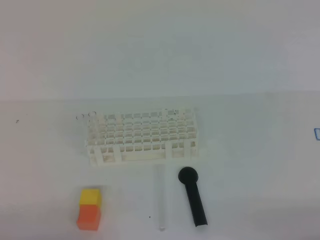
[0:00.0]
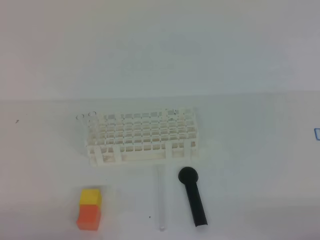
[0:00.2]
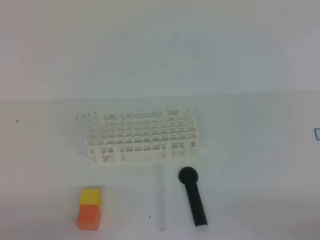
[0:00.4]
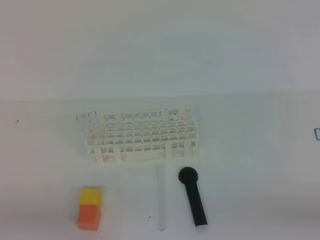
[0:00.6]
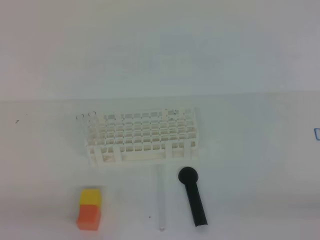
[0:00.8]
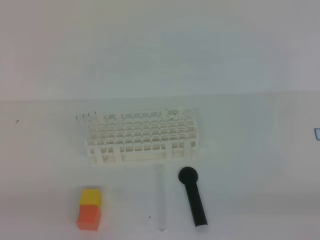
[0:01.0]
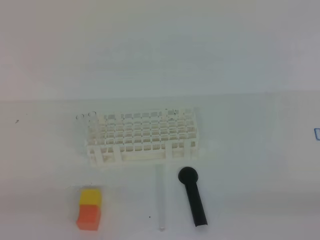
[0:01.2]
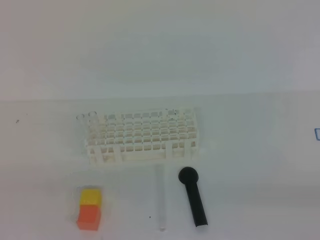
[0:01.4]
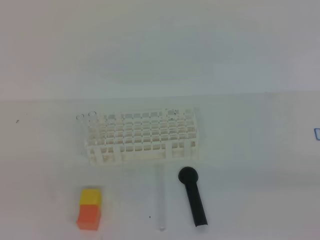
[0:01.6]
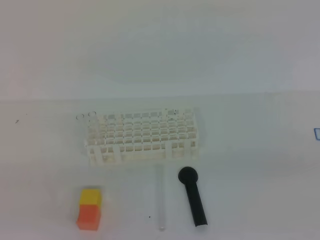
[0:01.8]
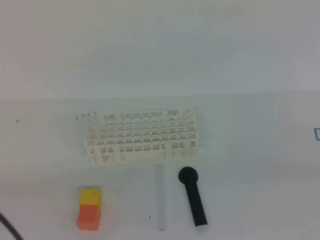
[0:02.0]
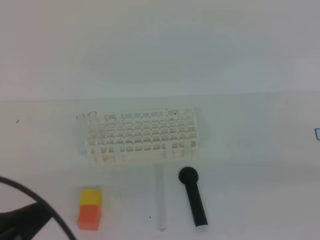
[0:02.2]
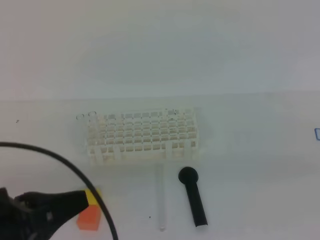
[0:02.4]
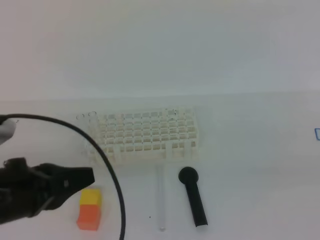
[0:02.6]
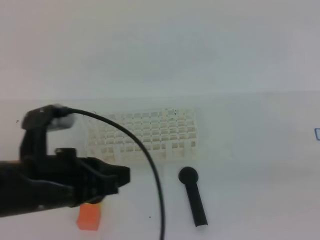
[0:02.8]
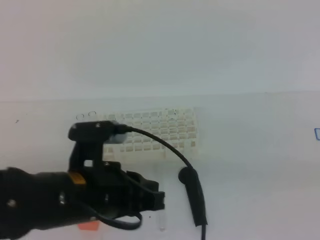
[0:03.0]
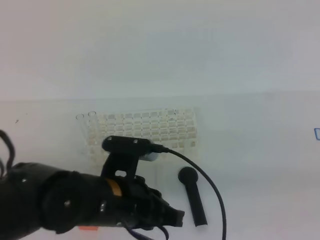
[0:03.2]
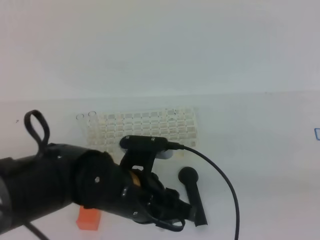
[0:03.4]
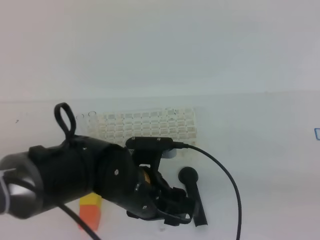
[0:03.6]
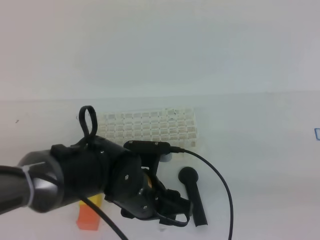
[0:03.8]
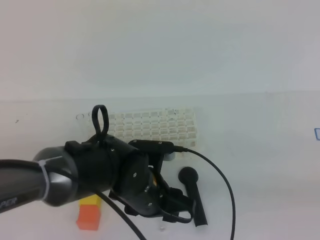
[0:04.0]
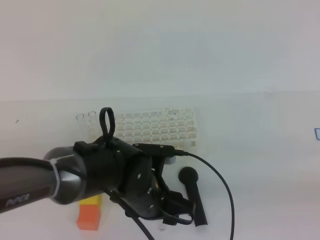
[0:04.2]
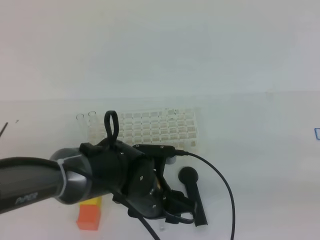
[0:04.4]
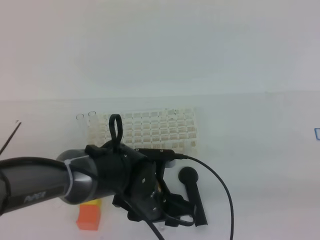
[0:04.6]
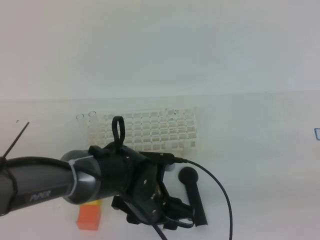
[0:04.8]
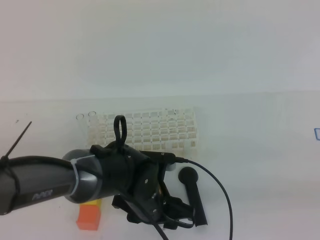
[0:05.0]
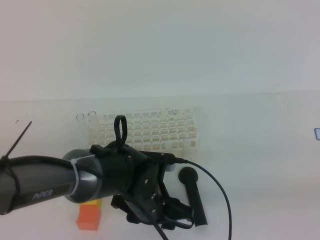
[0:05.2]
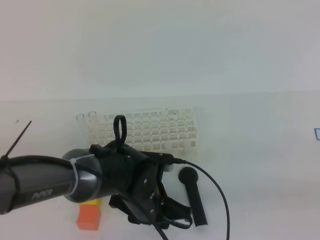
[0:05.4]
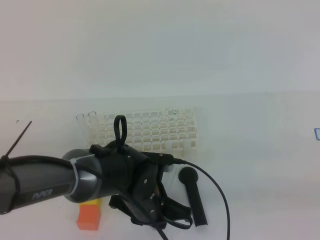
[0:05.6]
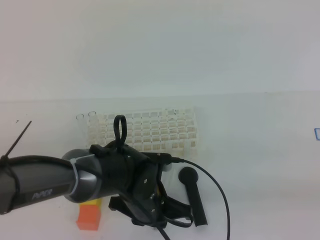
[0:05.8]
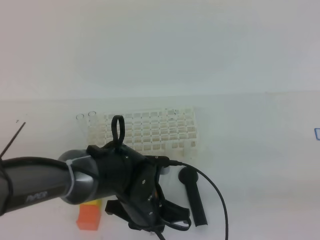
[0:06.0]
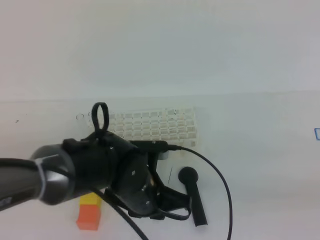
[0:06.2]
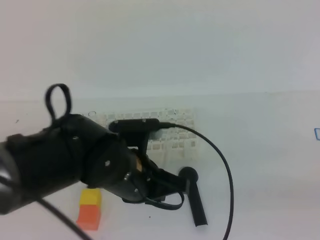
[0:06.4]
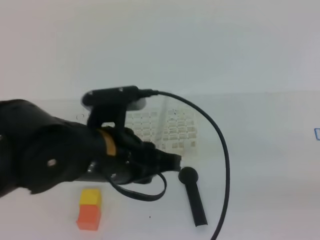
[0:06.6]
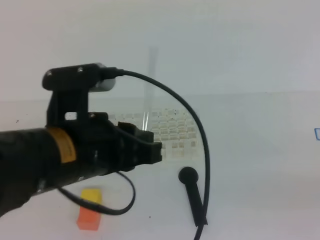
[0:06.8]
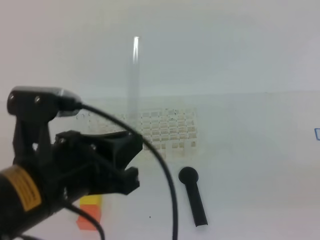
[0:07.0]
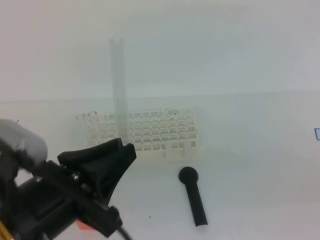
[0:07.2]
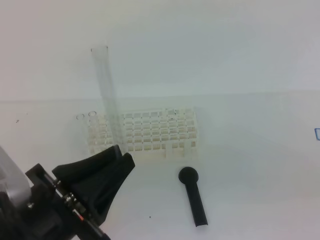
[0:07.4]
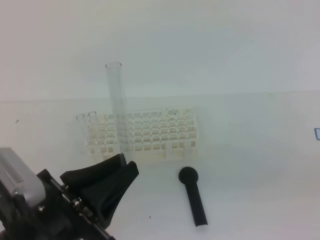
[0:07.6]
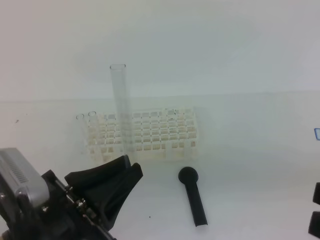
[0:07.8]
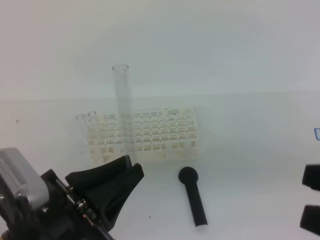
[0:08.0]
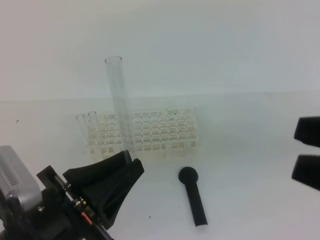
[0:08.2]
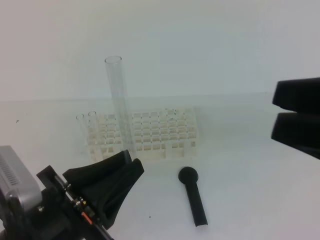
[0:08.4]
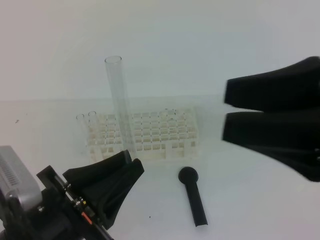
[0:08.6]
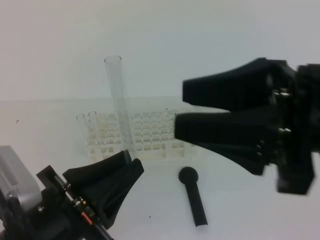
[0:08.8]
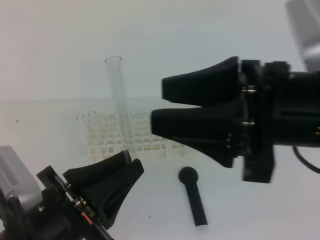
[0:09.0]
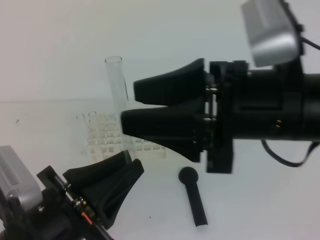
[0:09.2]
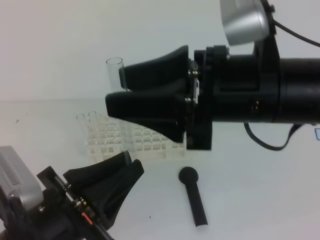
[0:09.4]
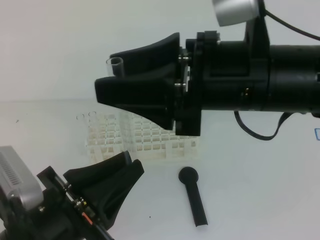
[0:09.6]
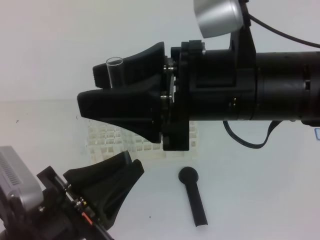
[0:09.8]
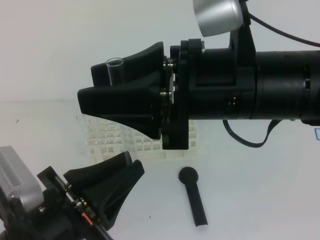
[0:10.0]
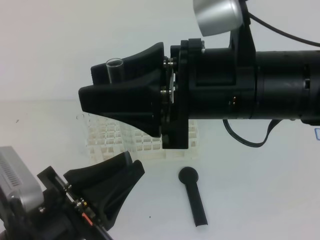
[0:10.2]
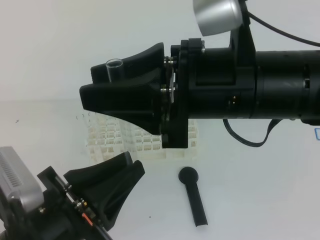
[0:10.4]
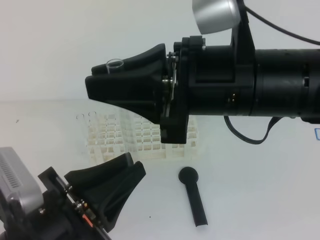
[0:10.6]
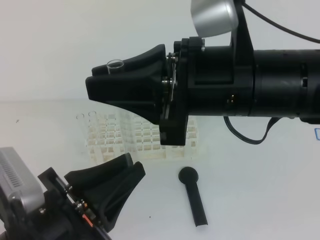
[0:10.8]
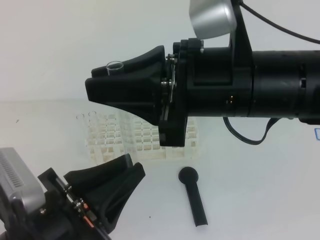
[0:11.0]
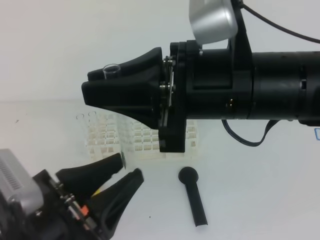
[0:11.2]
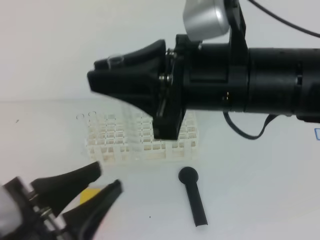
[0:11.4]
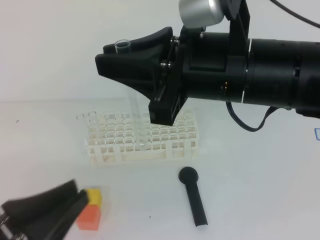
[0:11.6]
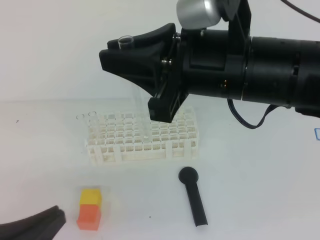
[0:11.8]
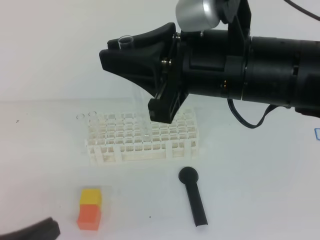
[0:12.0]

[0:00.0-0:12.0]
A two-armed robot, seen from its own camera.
0:01.6 to 0:03.0: The right gripper moves approximately 5 cm, while the left gripper heads to the right and forward, covering some 20 cm.
0:03.0 to 0:04.4: The left gripper goes some 15 cm to the right, downward and forward, and opens up.
0:04.4 to 0:06.0: The left gripper closes up.
0:06.0 to 0:07.6: The right gripper shifts about 5 cm to the left, while the left gripper is displaced backward, to the left and upward by approximately 20 cm.
0:07.6 to 0:09.0: The right gripper is displaced to the left and forward by about 15 cm, and opens up.
0:09.0 to 0:10.4: The right gripper moves to the left, some 5 cm, and closes.
0:10.4 to 0:12.0: The left gripper travels to the left by about 10 cm, and opens, then closes again, while the right gripper closes up.

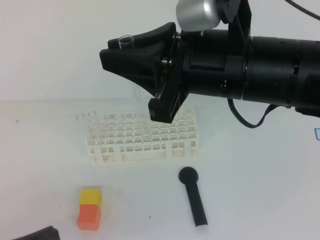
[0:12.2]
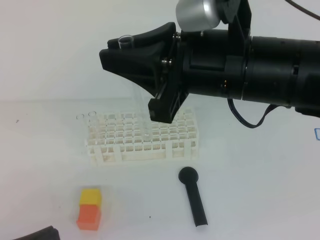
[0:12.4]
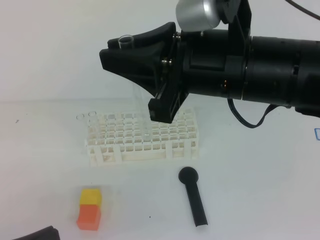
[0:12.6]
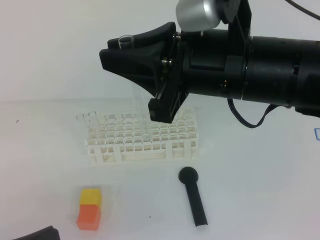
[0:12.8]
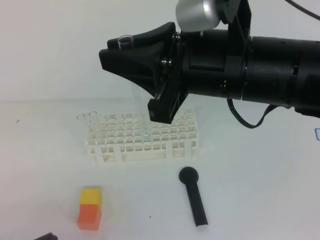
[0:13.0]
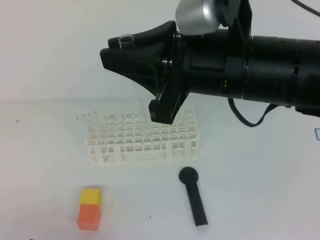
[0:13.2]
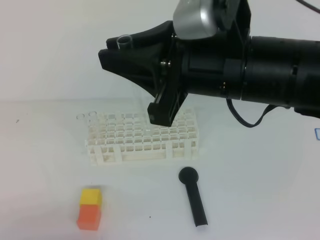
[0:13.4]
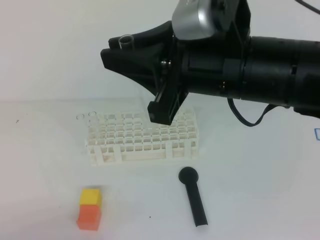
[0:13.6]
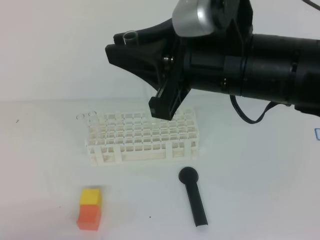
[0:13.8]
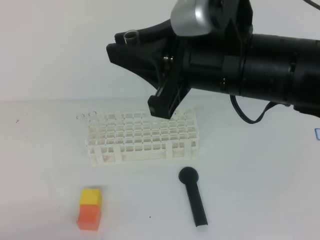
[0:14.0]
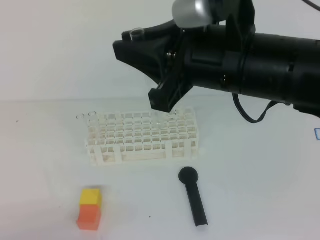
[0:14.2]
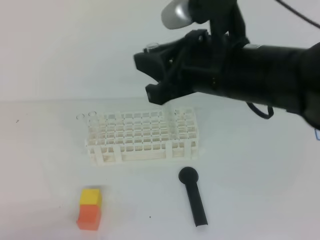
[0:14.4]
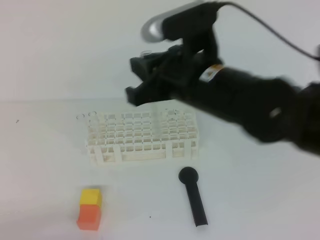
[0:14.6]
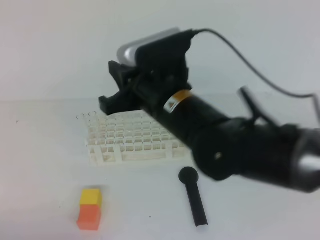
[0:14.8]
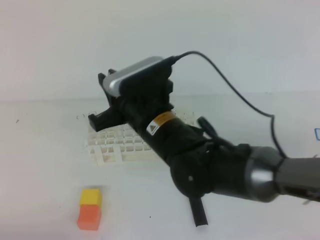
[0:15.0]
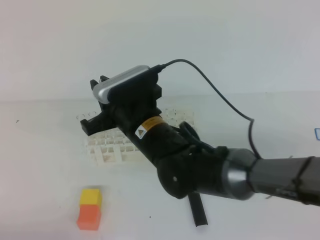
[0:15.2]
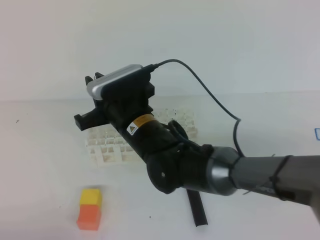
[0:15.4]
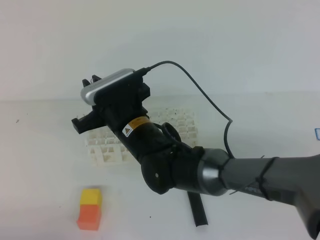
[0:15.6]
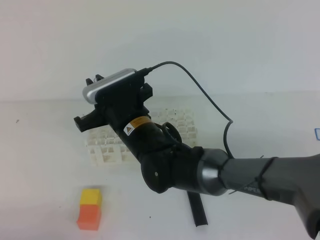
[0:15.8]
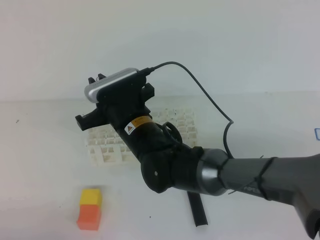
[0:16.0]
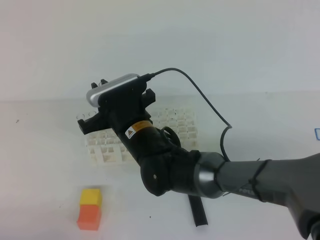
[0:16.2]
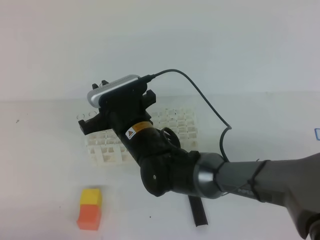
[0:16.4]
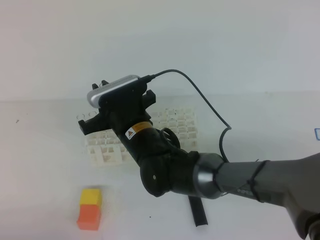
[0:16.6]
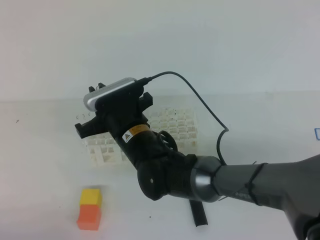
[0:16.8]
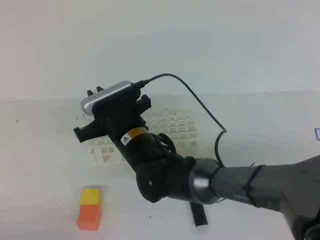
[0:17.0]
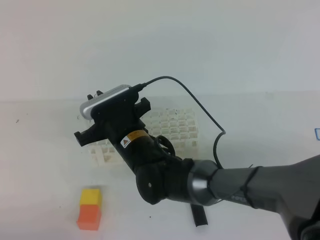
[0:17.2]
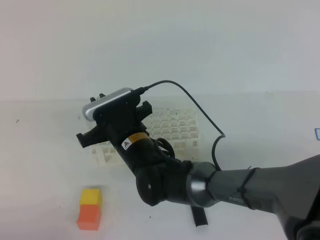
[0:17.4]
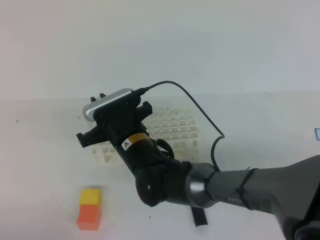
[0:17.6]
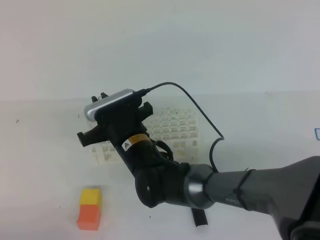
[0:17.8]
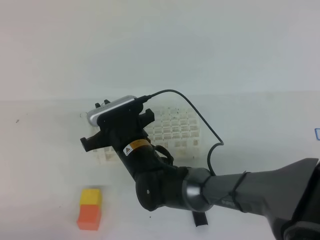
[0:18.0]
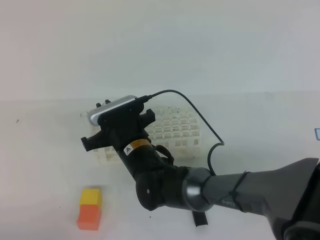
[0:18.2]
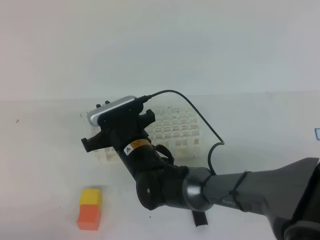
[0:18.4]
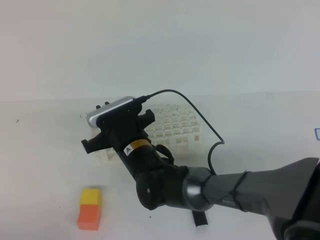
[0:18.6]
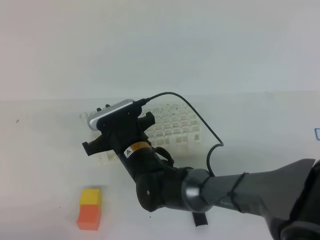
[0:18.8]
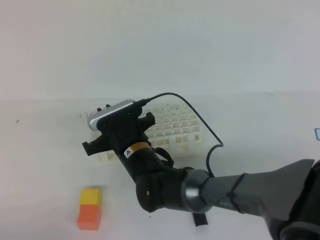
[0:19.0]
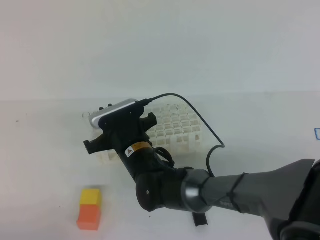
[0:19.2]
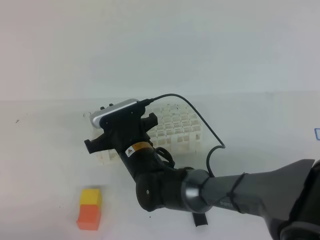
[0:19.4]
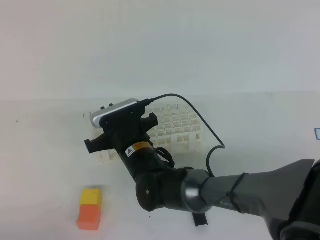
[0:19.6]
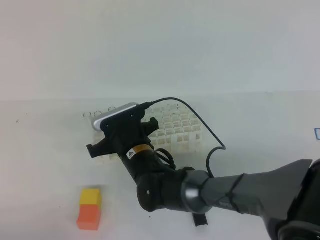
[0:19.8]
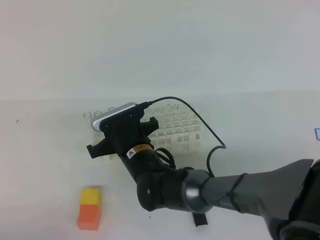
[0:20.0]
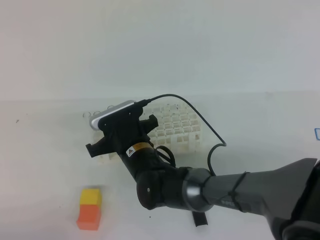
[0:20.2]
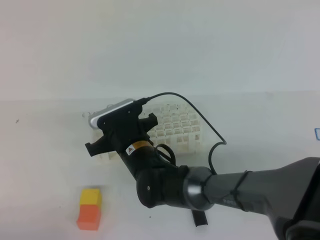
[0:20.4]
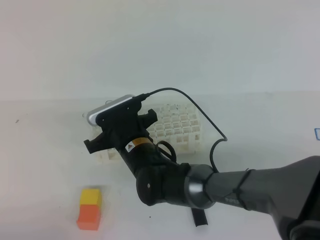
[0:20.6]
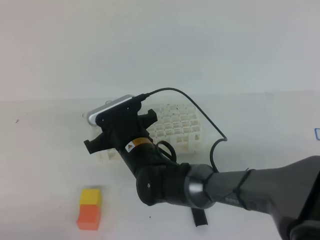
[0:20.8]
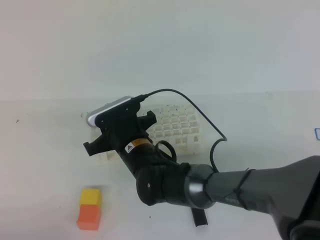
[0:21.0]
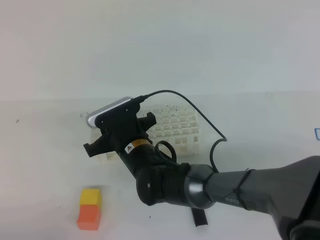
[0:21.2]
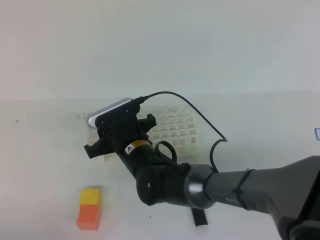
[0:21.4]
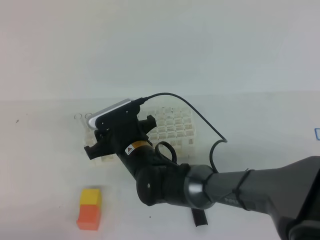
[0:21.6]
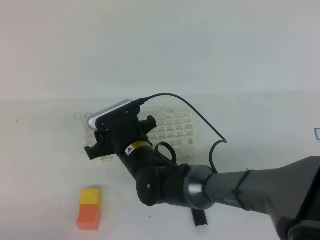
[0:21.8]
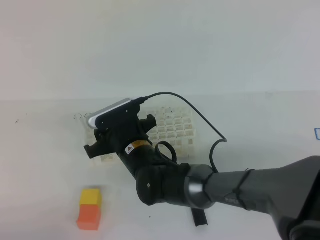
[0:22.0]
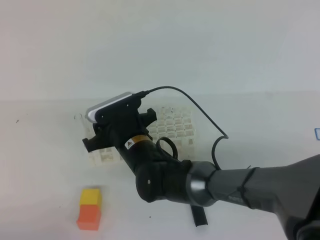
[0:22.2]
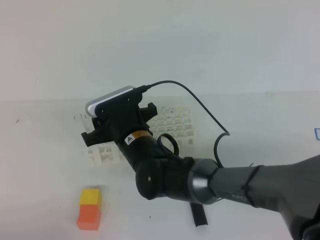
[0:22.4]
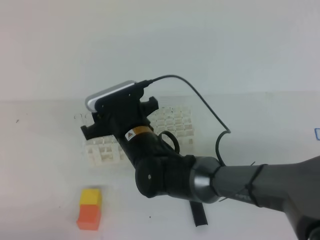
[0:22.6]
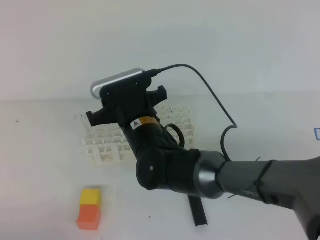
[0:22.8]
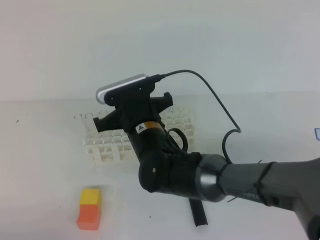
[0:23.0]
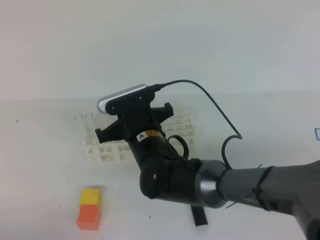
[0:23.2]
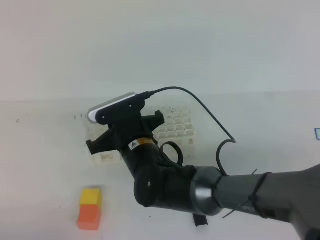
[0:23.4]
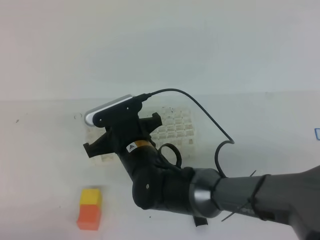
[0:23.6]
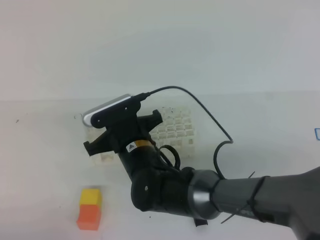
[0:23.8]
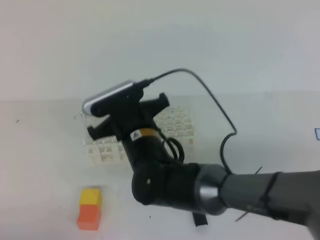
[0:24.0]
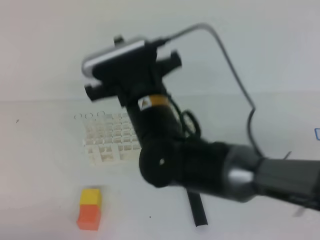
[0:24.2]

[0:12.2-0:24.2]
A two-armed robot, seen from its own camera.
0:12.2 to 0:13.8: The left gripper shifts approximately 10 cm downward.
0:13.8 to 0:15.2: The right gripper heads downward, to the left and forward, covering about 20 cm.
0:15.2 to 0:16.6: The right gripper shifts by some 5 cm.
0:16.6 to 0:21.2: The grippers move only a little.
0:21.2 to 0:22.6: The right gripper opens its fingers.
0:22.6 to 0:24.2: The right gripper is displaced upward by about 10 cm, and closes up.
